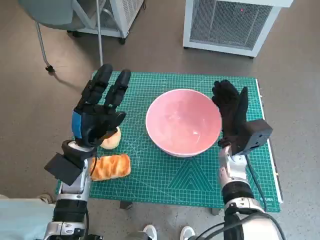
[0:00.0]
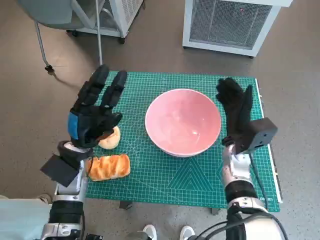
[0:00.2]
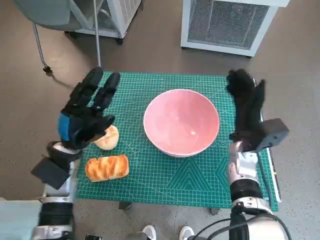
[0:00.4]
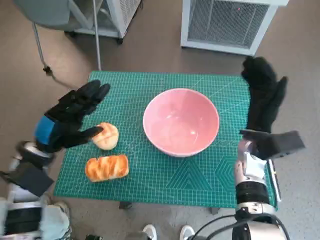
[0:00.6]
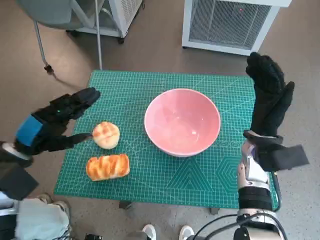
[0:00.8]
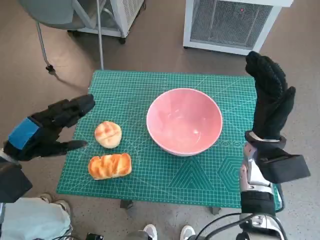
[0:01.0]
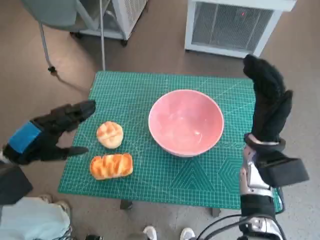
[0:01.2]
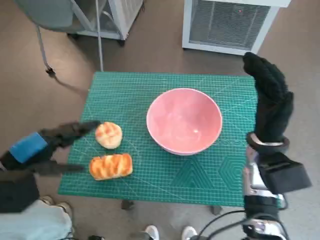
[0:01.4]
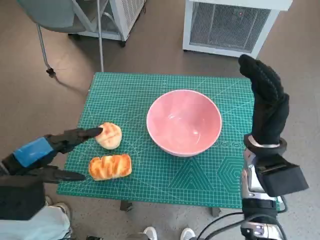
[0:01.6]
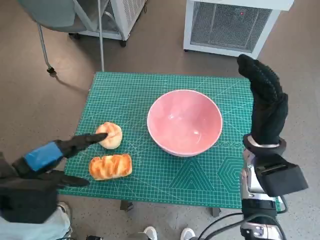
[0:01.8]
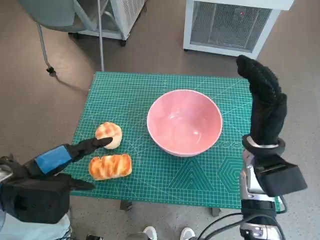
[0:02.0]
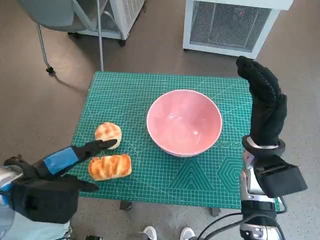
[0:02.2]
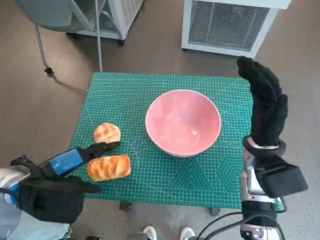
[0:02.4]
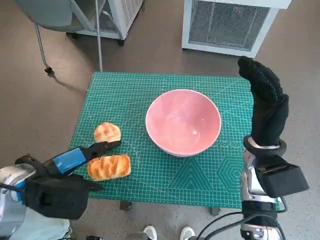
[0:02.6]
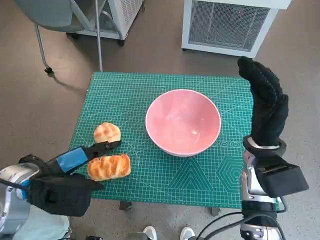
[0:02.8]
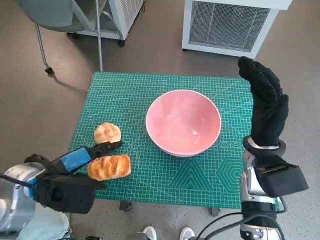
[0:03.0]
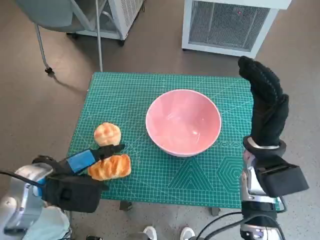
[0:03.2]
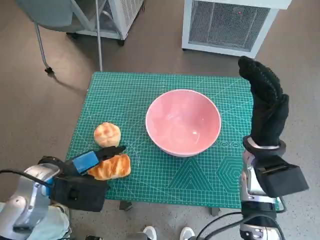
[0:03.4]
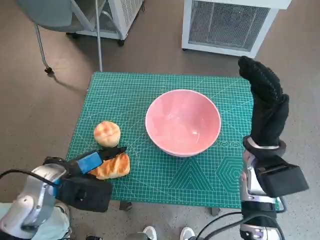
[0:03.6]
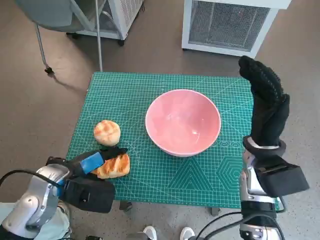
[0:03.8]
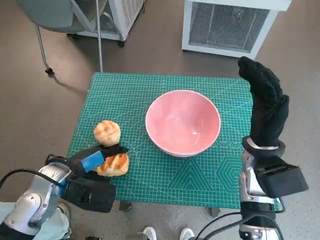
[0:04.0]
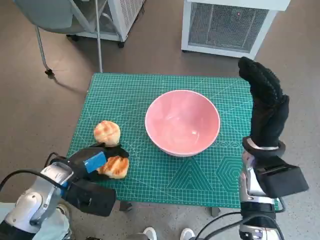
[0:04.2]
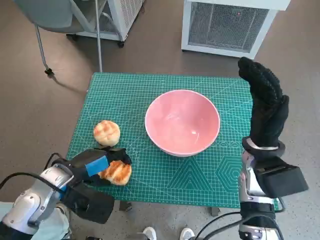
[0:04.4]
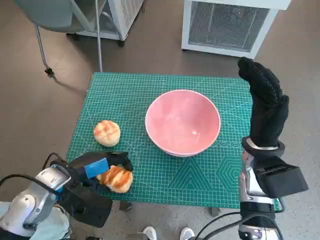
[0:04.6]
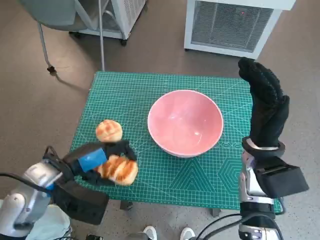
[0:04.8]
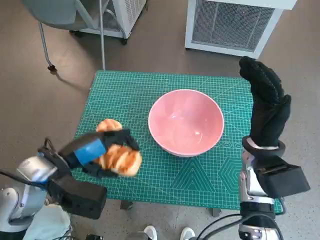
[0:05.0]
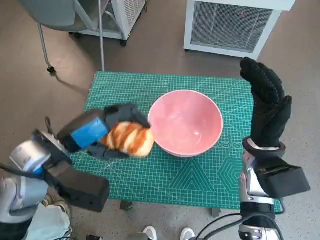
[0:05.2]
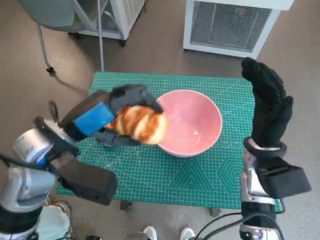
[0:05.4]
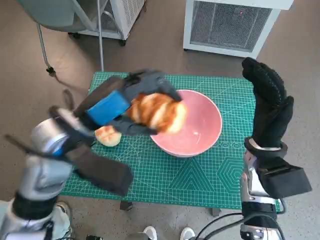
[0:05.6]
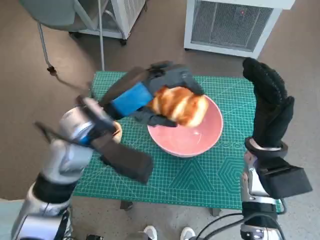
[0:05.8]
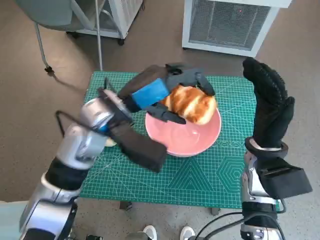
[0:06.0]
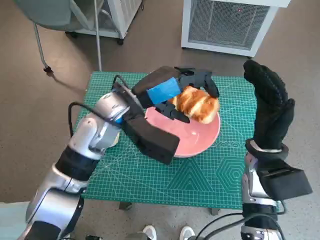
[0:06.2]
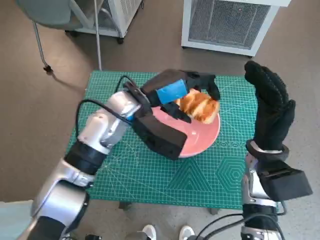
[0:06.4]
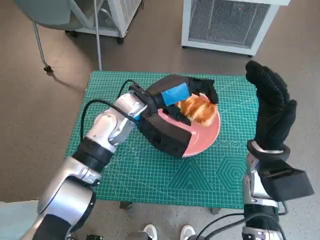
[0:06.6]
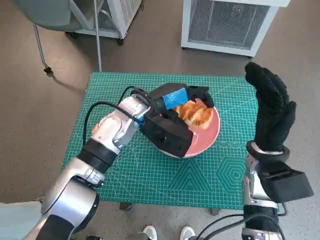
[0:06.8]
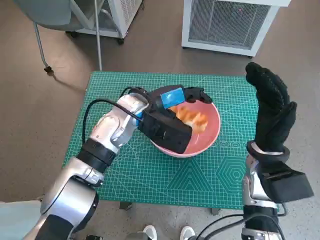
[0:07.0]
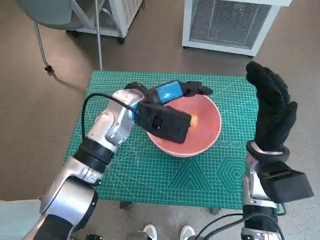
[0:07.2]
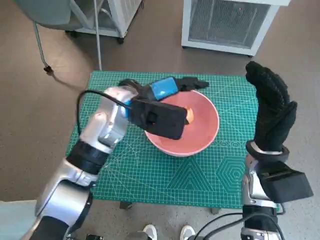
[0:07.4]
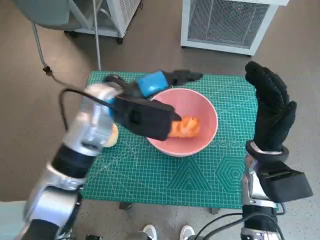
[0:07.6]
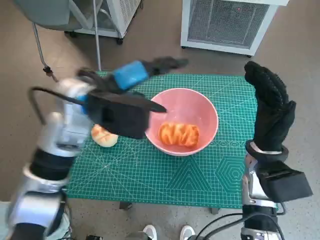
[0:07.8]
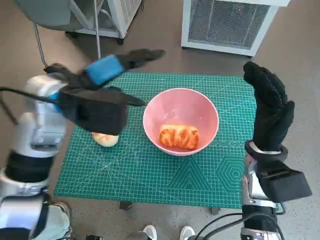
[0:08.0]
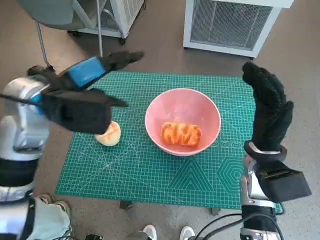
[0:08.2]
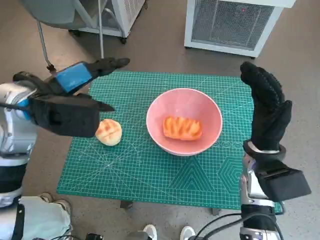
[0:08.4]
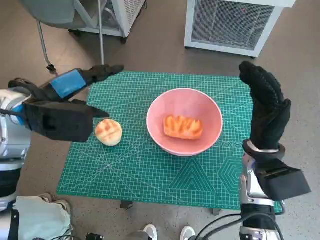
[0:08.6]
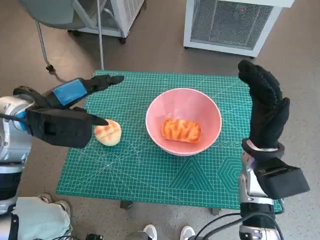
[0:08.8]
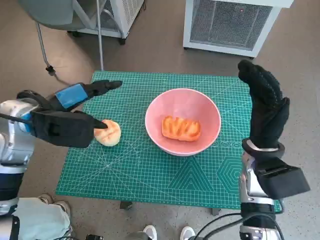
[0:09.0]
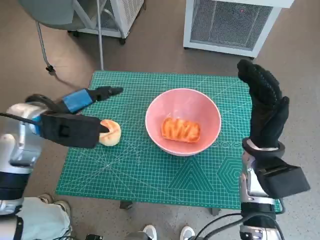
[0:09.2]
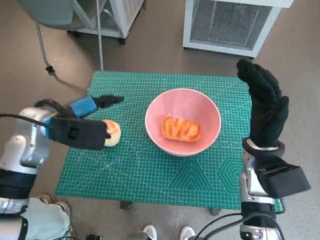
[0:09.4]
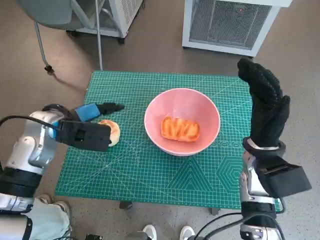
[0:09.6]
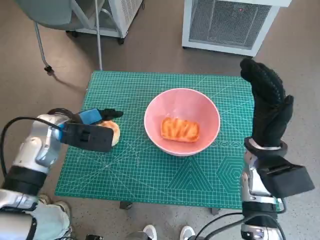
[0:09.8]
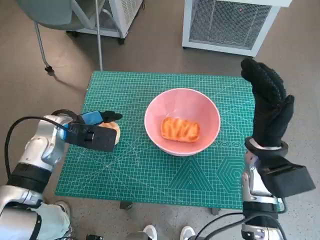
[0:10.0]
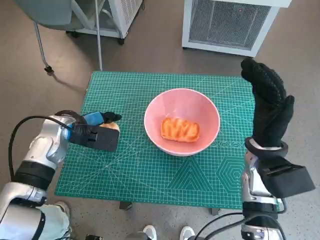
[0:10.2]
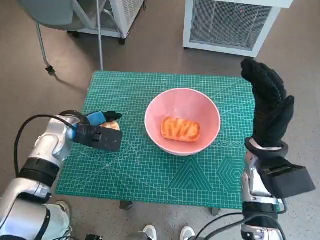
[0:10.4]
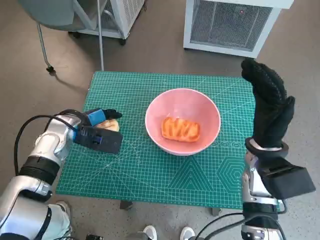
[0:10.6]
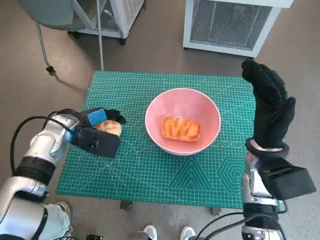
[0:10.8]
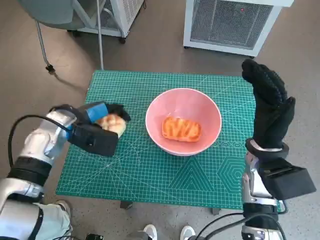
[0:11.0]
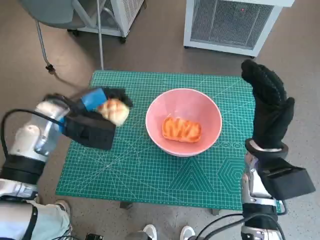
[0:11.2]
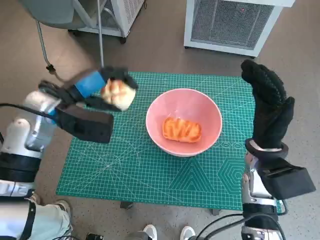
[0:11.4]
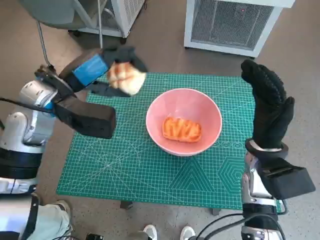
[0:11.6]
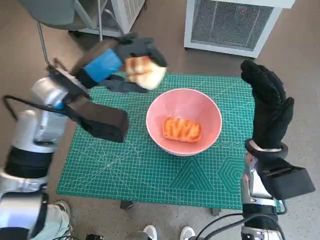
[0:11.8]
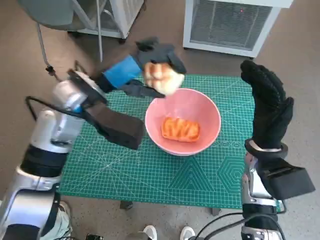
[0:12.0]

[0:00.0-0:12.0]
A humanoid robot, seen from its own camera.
Task of the whole recording: Push the bowl to the center of the table and put the bread into the bowl.
Step, 0:00.4 to 0:04.2: Grasp the long bread with left hand.
Step, 0:04.4 to 0:07.6: Place the long bread in pink bowl with left hand.
Step, 0:07.8 to 0:10.4: Grasp the round bread with left hand.
0:00.0 to 0:01.6: The left hand travels upward, to the left and backward by some 15 cm, while the right hand is displaced upward by some 10 cm.
0:01.6 to 0:03.0: The left hand shifts by roughly 5 cm.
0:03.0 to 0:04.4: The left hand moves downward, about 5 cm.
0:04.4 to 0:06.0: The left hand travels upward, to the right and forward by about 15 cm.
0:07.6 to 0:09.0: The left hand travels to the left by approximately 15 cm.
0:09.0 to 0:10.4: The left hand goes about 10 cm downward.
0:10.4 to 0:12.0: The left hand travels upward and to the right by roughly 15 cm.

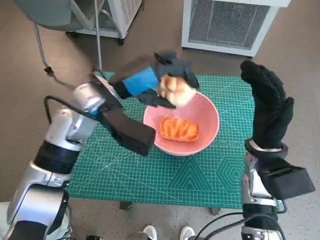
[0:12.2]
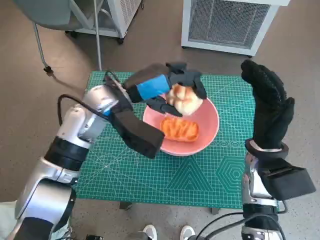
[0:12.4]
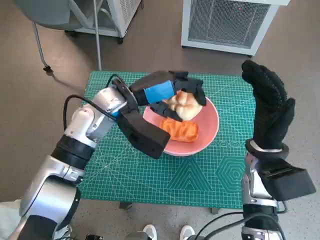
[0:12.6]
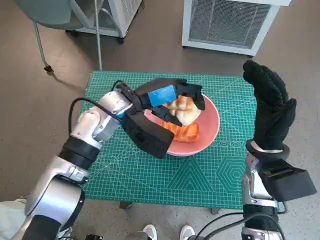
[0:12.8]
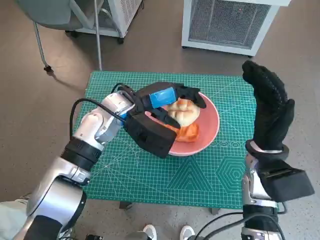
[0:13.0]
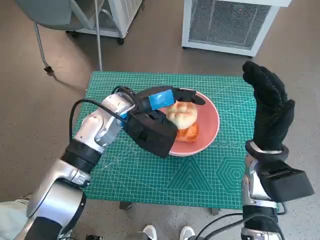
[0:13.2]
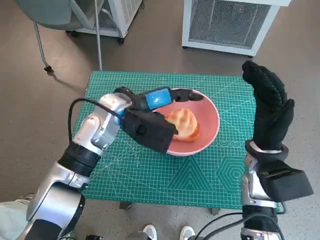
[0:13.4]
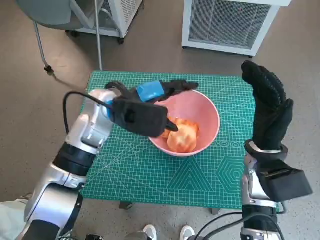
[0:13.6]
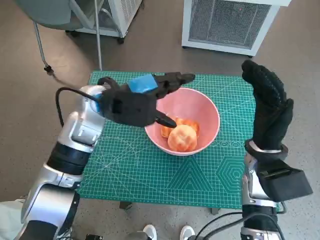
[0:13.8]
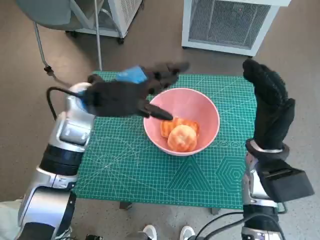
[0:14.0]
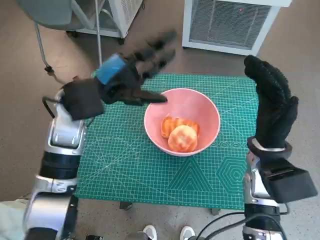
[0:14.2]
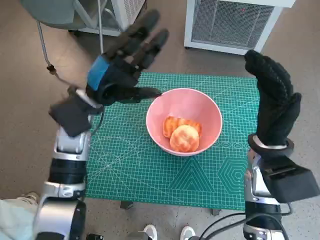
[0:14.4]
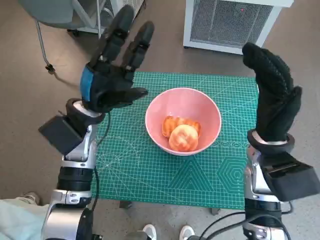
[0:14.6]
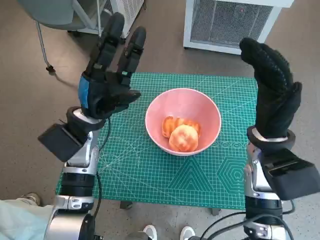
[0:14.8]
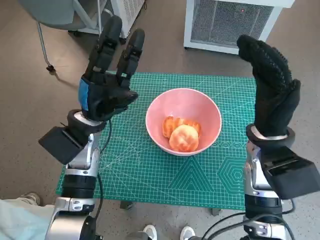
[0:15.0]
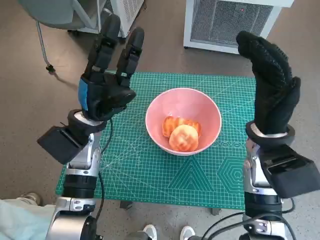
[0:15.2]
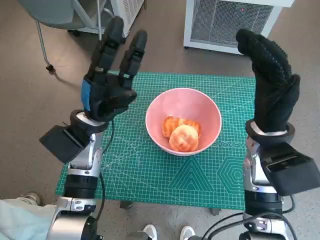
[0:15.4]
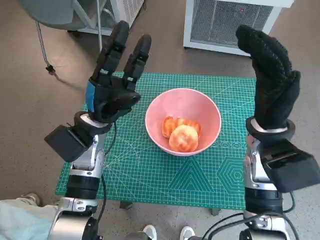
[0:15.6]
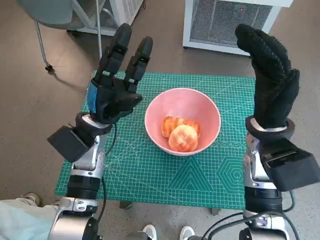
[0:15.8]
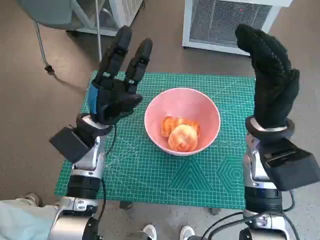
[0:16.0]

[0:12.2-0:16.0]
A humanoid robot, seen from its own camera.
Task of the whole recording: Push the bowl to the center of the table and put the bread into the bowl.
0:12.2 to 0:13.4: The left hand moves approximately 5 cm.
0:13.4 to 0:14.8: The left hand moves to the left, about 5 cm.
0:14.8 to 0:16.0: The hands stay close to where they were, moving slightly.

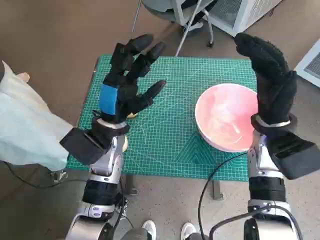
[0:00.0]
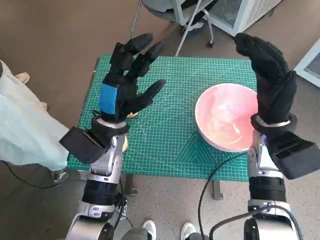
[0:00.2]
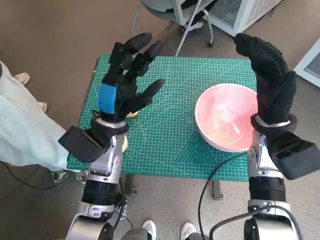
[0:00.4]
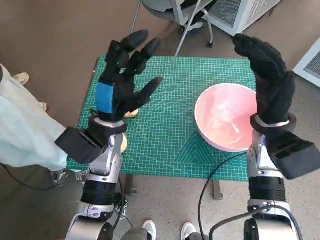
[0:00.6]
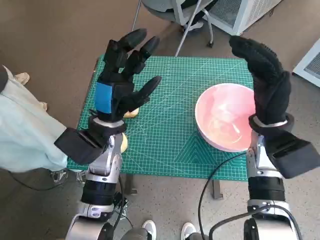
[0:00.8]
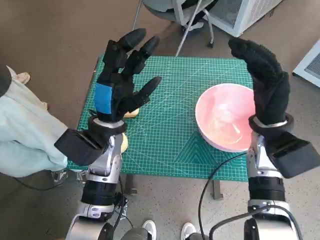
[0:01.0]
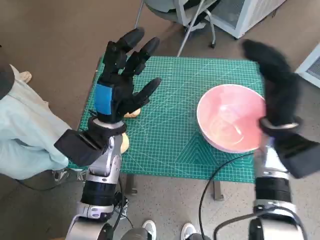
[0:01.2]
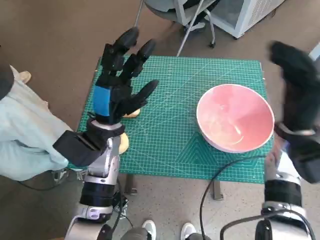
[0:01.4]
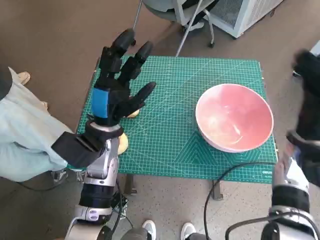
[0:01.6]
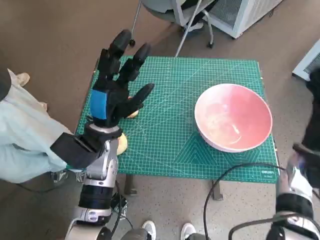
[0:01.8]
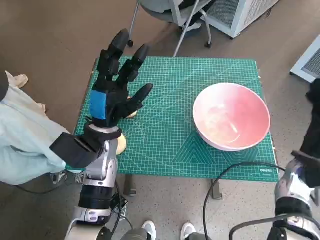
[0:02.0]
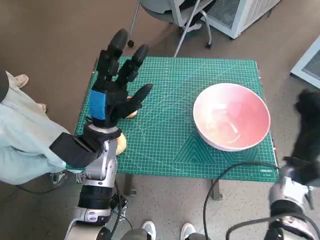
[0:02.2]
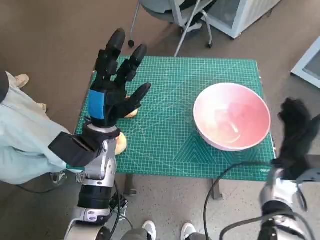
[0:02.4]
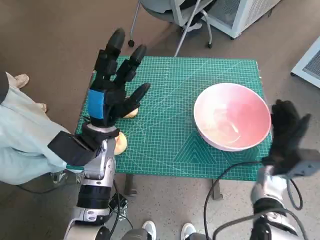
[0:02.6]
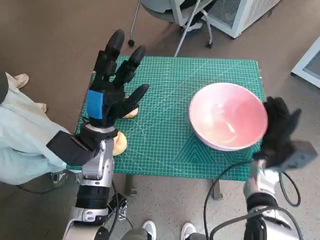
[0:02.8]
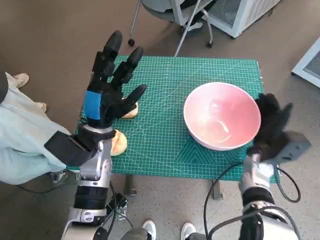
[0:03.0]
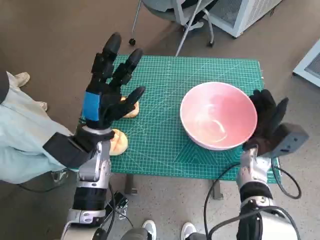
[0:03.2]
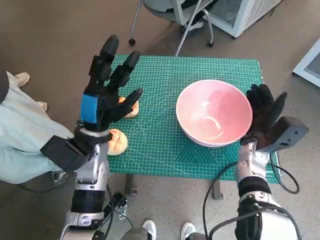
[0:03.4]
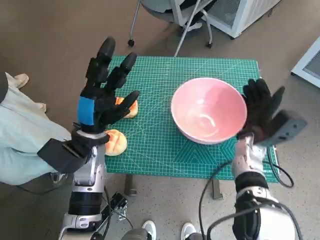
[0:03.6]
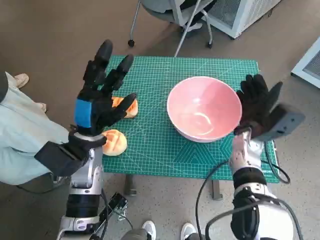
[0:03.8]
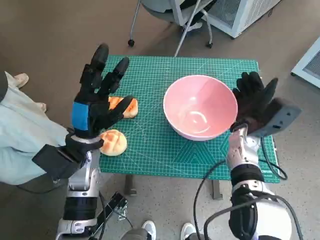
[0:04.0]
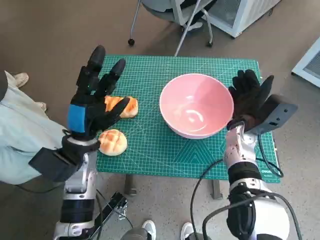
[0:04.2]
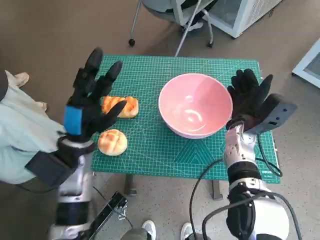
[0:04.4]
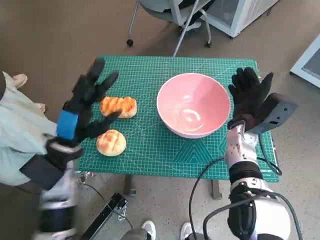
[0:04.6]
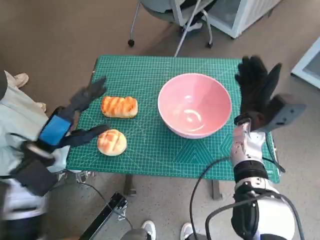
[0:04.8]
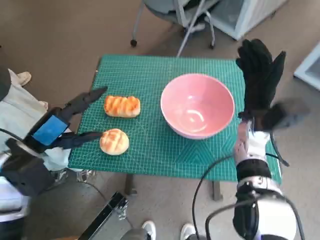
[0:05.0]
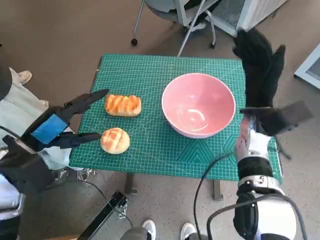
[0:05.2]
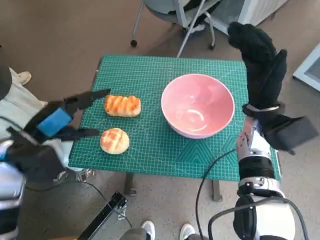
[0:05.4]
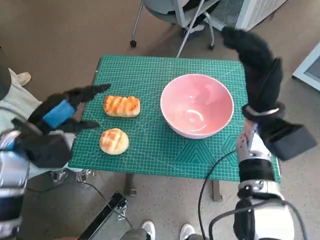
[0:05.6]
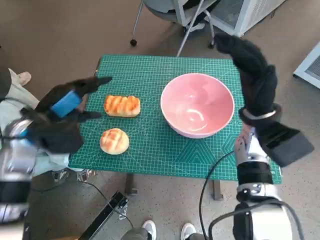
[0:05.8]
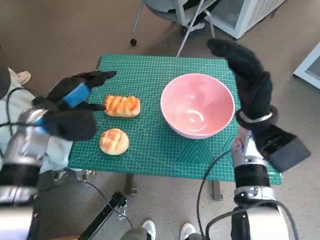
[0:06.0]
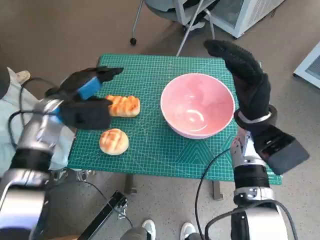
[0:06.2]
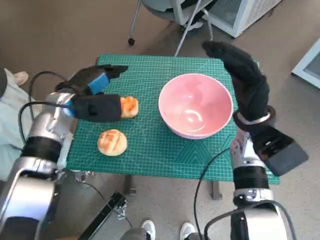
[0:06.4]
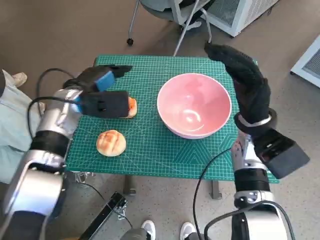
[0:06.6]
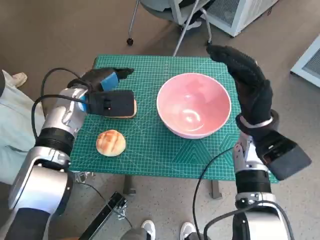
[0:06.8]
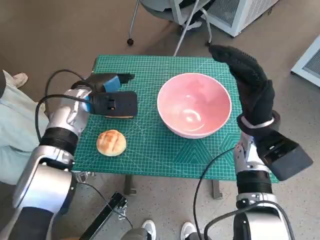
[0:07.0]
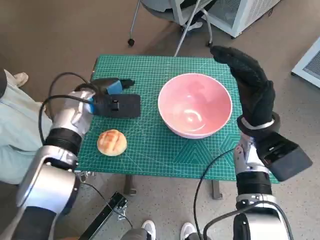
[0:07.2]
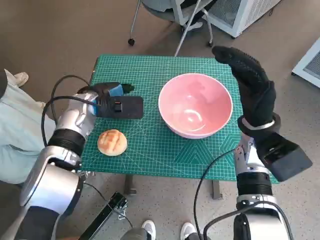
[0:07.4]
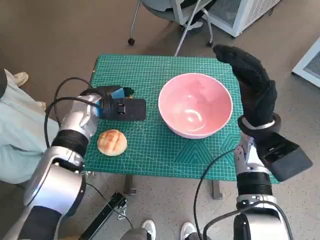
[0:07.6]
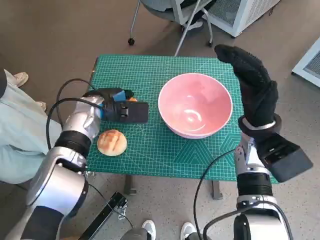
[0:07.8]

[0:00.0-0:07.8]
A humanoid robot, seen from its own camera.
Task of the whole recording: Push the bowl to the center of the table and put the bread into the bowl.
Step, 0:00.0 to 0:04.6: Move the pink bowl to the center of table with right hand.
0:01.6 to 0:03.2: The right hand moves downward, roughly 10 cm.
0:03.2 to 0:04.6: The left hand moves to the left, some 5 cm. The right hand changes place by about 5 cm.
0:04.6 to 0:06.2: The left hand shifts some 10 cm forward, while the right hand moves upward, about 5 cm.
0:06.2 to 0:07.8: The left hand heads to the right, covering approximately 5 cm.
